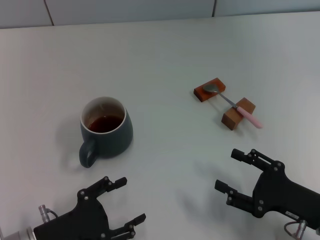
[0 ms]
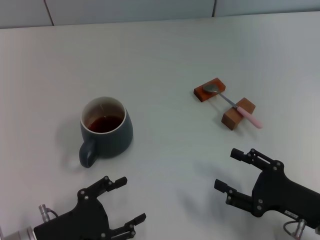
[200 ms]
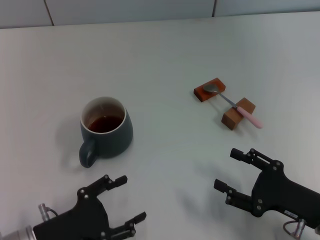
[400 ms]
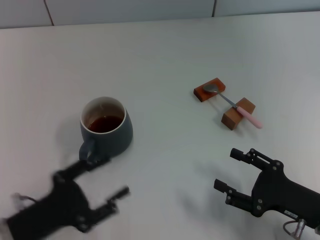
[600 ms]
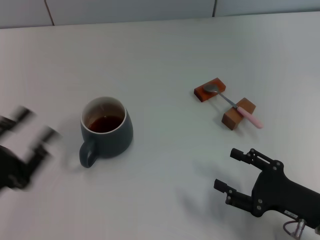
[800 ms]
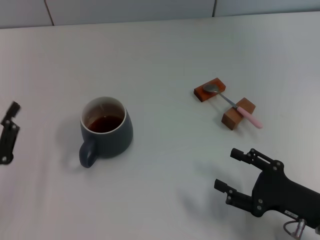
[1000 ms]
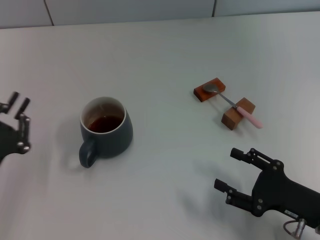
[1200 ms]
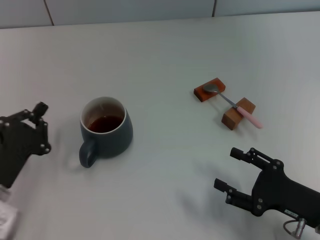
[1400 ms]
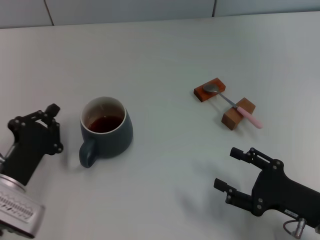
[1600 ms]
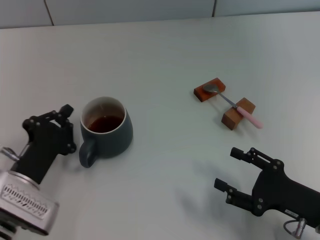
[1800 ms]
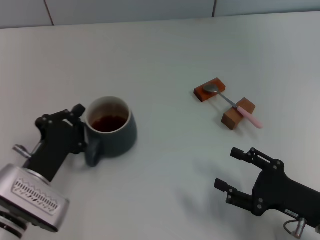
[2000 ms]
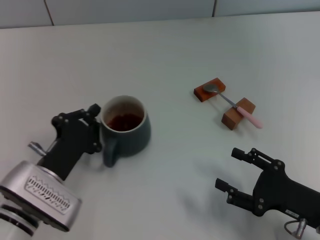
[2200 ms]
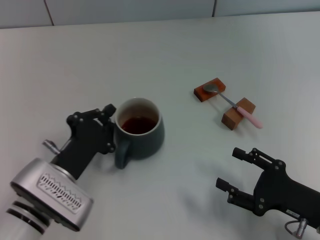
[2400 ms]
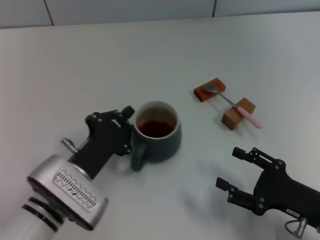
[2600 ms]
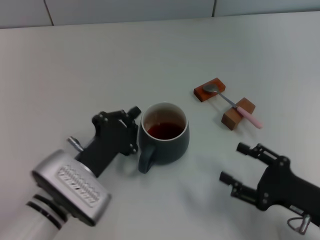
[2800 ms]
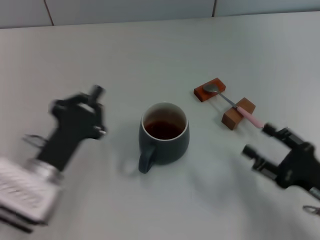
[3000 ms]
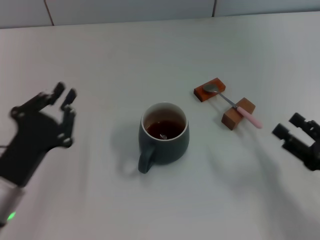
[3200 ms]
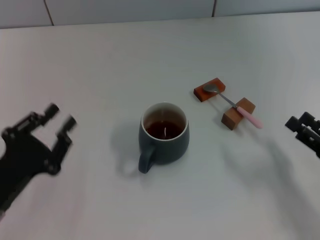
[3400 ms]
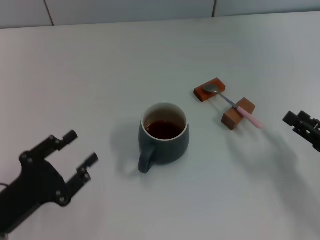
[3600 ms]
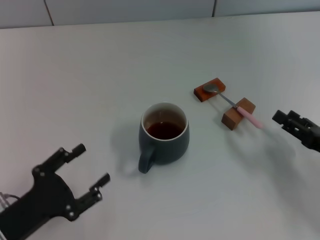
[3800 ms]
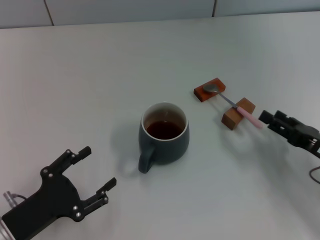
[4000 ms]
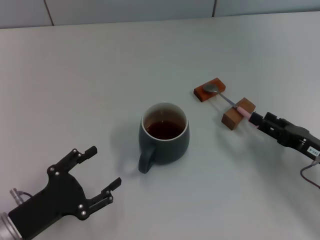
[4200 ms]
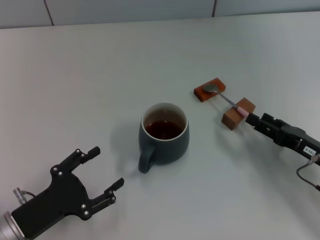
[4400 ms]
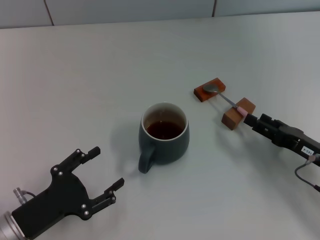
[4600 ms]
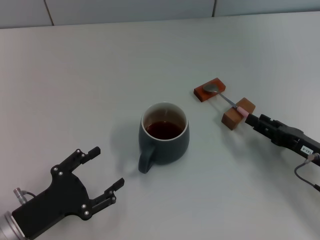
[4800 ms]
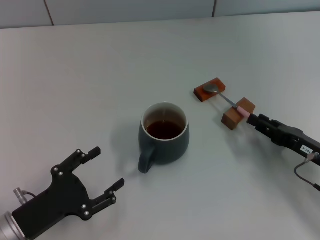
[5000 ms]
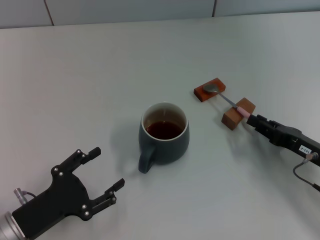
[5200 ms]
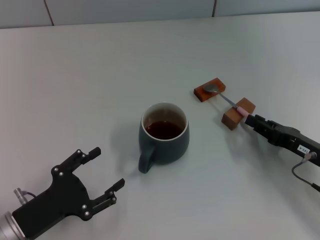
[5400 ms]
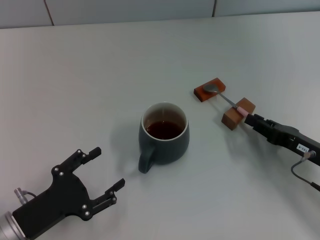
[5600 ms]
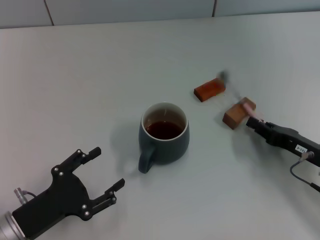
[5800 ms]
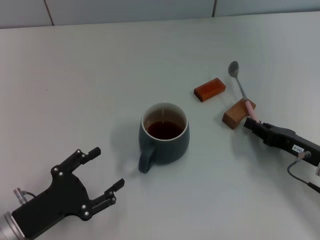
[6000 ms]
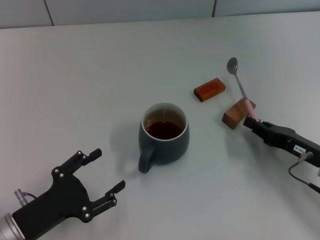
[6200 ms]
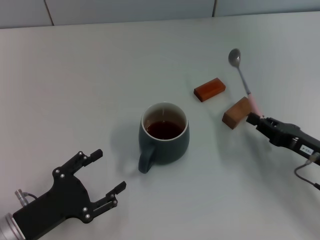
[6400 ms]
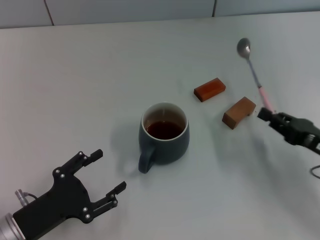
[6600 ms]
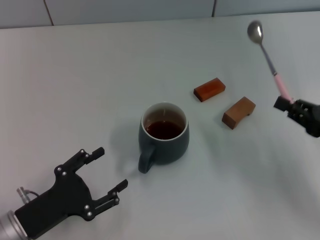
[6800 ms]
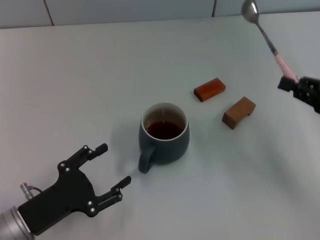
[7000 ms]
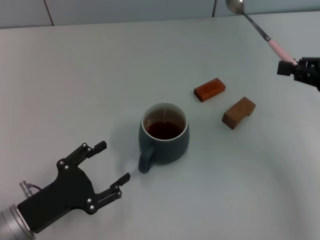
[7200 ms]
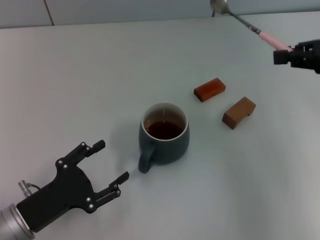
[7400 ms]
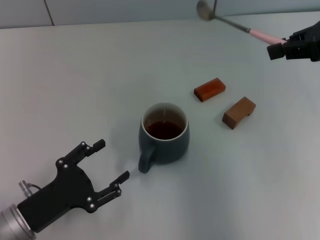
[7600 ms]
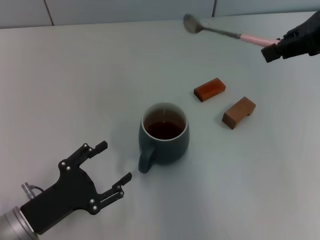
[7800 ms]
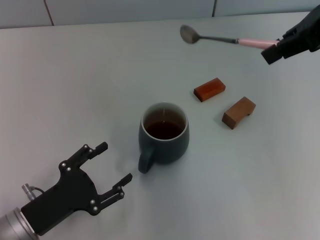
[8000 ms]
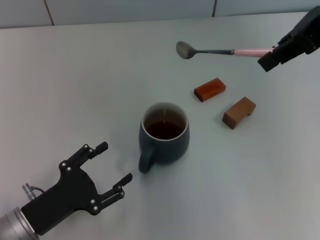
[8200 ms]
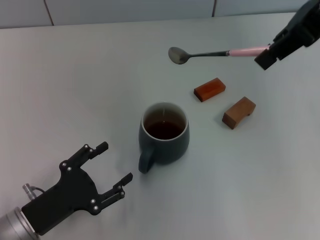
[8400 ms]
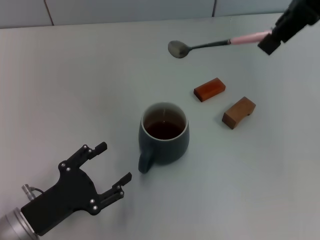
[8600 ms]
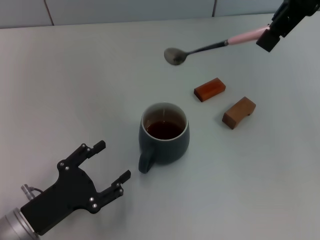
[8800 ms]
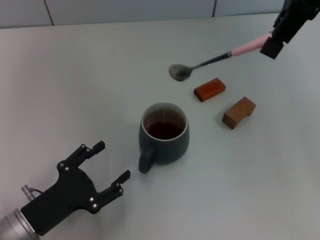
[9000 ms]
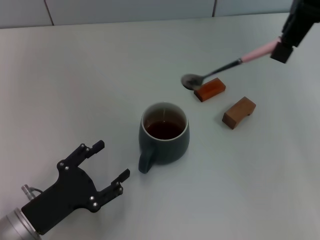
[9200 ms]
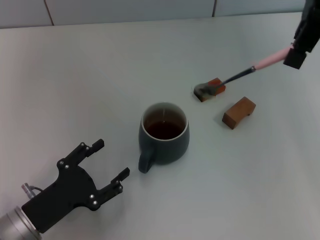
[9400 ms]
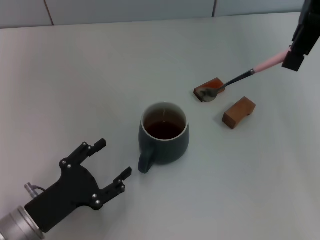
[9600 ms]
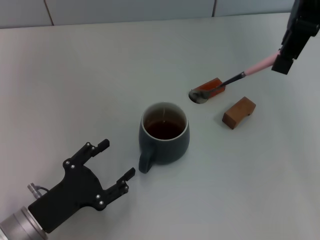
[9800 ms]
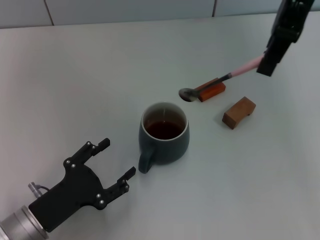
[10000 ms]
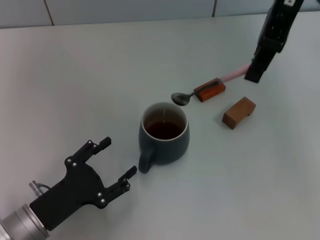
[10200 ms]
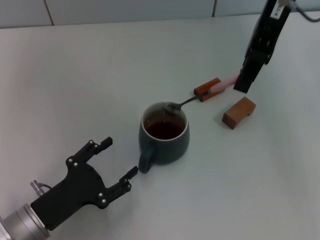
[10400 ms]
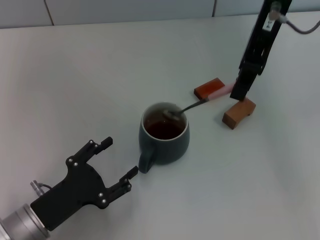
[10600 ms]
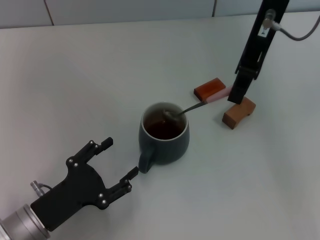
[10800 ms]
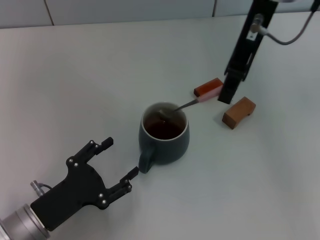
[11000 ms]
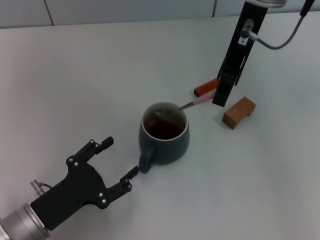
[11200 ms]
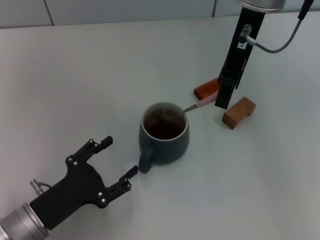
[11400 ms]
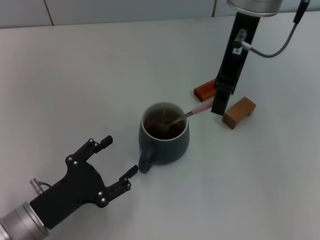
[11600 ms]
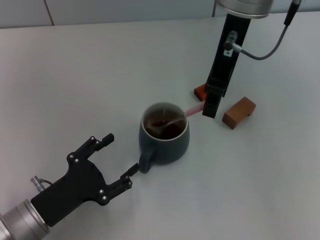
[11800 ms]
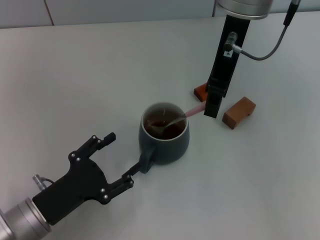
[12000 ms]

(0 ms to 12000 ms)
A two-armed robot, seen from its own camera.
Task of the whole recording: Move the grey cup to the center, lift the pink spoon, stir it three times in the cup, and put the spoon into the cup.
Step, 0 ms - 2800 ms: Move the cup with coffee to the center of view with the left gripper.
Step, 3000 ms - 6600 ms: Pick up the spoon with the right gripper.
0 ms - 1600 ms: The left gripper moves forward, roughly 5 cm, and closes its fingers.
1600 ms - 3000 ms: The left gripper shifts approximately 5 cm to the right.
3000 ms - 4400 ms: The left gripper is displaced to the left and backward by some 10 cm, and opens its fingers; the right gripper travels forward by approximately 5 cm.
4400 ms - 6000 ms: The right gripper closes up.
6000 ms - 7600 ms: The right gripper is displaced upward by some 25 cm.
7600 ms - 9000 ms: The right gripper heads to the left, upward and forward, covering about 15 cm.
9000 ms - 10400 ms: The right gripper moves downward, roughly 5 cm.
10400 ms - 12000 ms: The right gripper changes place by some 5 cm.

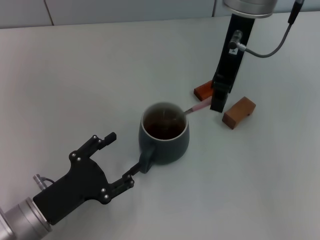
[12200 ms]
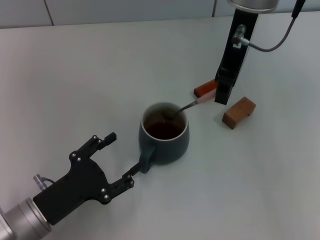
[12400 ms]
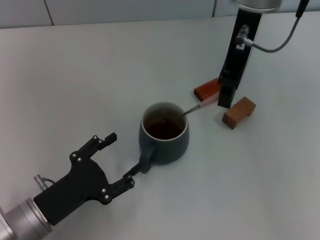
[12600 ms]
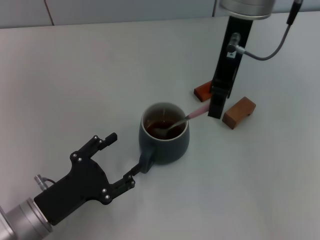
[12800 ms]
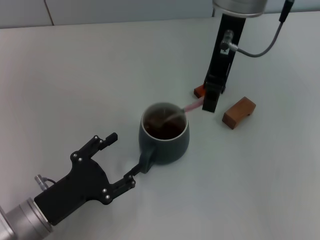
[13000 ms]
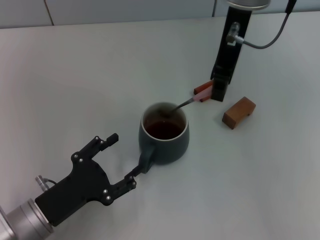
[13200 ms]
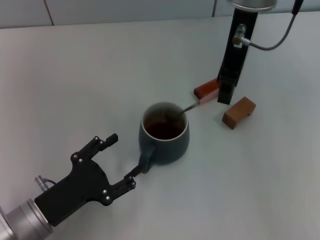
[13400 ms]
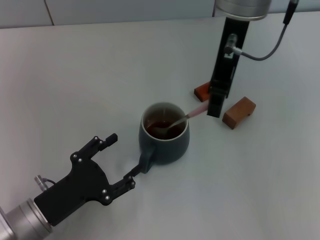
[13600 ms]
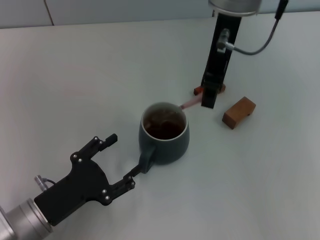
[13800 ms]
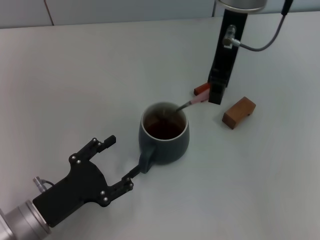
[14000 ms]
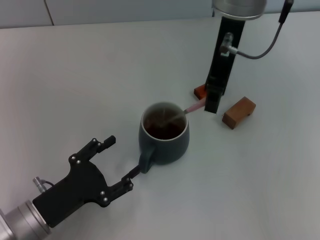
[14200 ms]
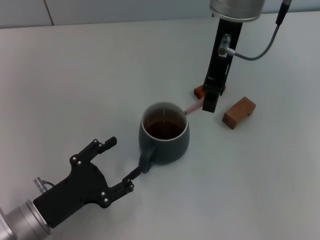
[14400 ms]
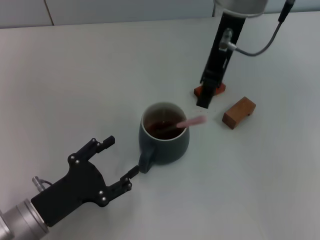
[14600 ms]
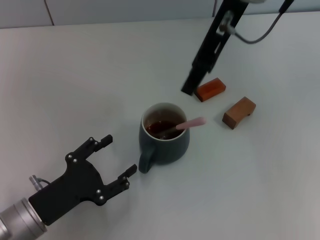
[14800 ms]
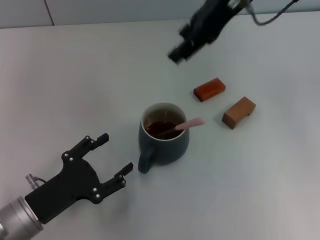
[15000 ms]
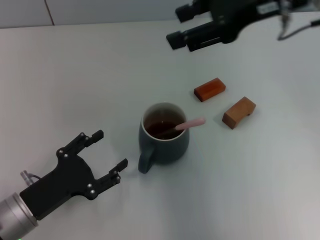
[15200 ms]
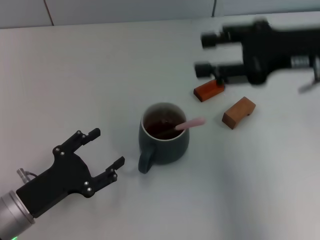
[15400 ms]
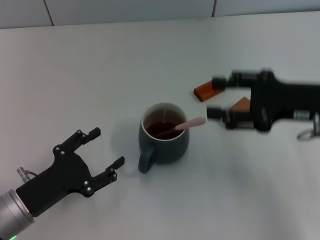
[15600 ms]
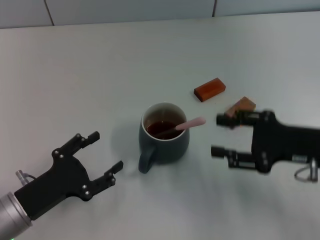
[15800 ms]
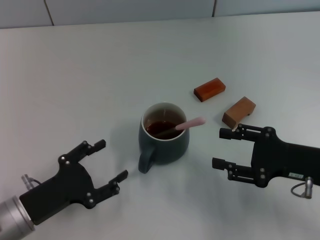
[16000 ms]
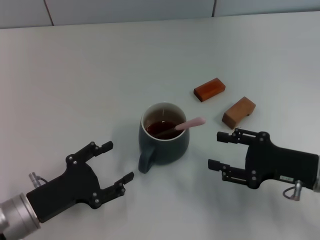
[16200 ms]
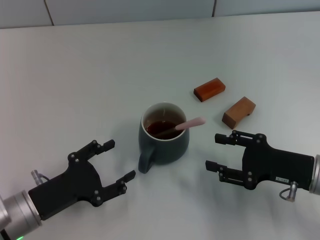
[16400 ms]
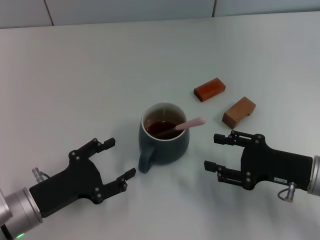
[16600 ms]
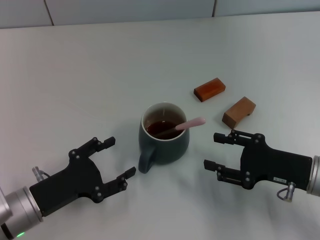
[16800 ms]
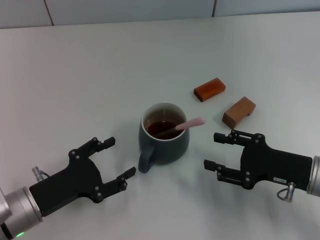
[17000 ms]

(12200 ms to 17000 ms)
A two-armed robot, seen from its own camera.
Task of the whole recording: Move the grey cup to the center, lift the pink spoon, stir it three times in the cup, and put the spoon into the cup.
Step, 12200 ms - 14600 ms: Stir the coffee in the cup with the right gripper.
12200 ms - 13800 ms: The grippers stay close to where they were, moving slightly.
13800 ms - 15400 ms: The right gripper is displaced to the right and backward by some 20 cm, and opens its fingers.
15400 ms - 17000 ms: The right gripper heads downward and backward, covering approximately 20 cm.

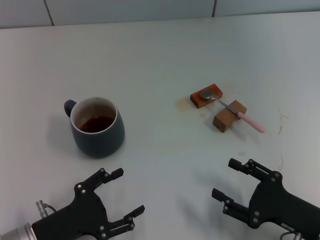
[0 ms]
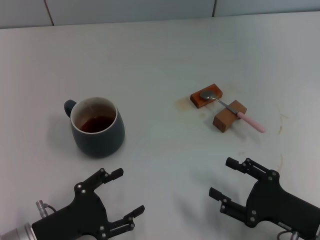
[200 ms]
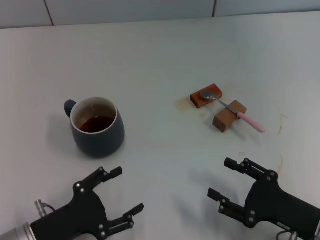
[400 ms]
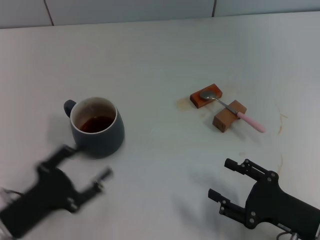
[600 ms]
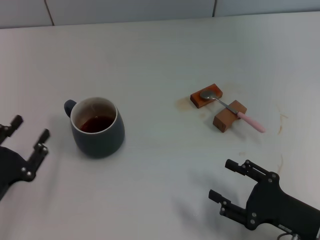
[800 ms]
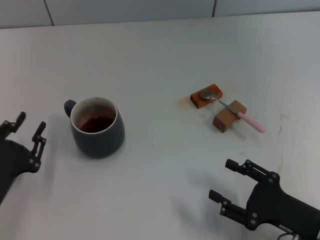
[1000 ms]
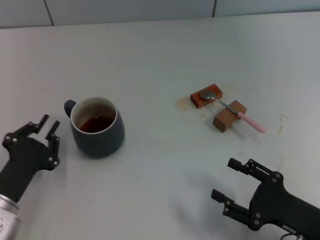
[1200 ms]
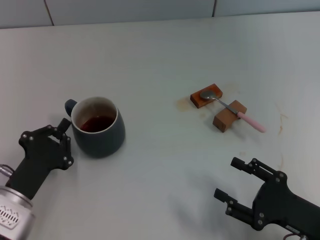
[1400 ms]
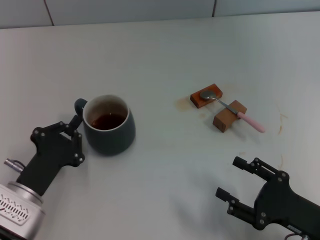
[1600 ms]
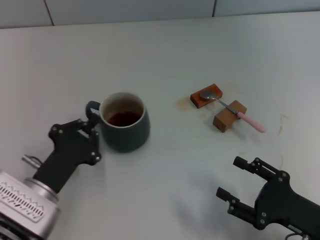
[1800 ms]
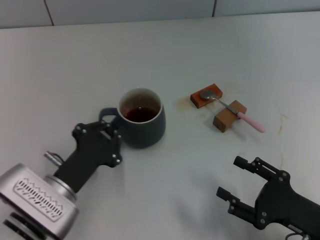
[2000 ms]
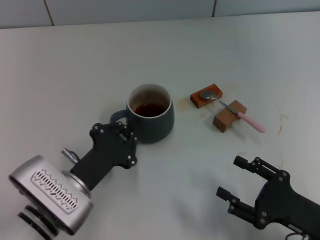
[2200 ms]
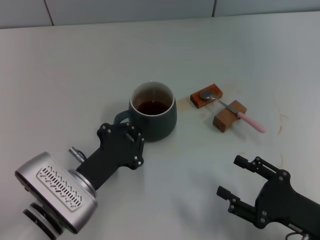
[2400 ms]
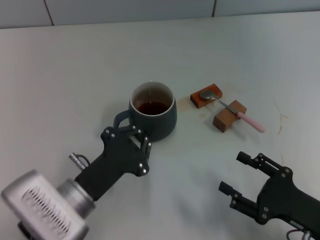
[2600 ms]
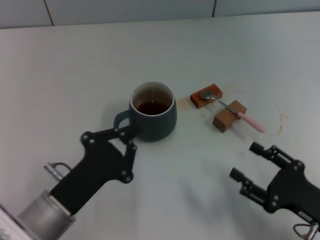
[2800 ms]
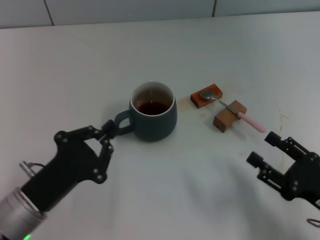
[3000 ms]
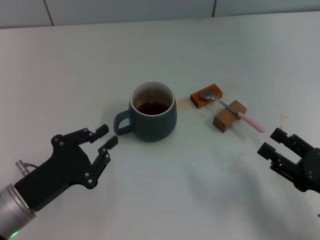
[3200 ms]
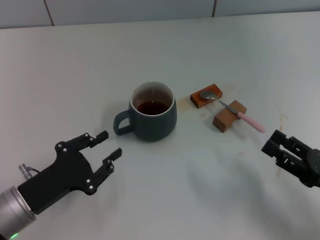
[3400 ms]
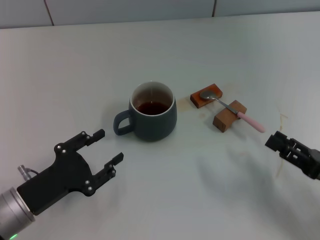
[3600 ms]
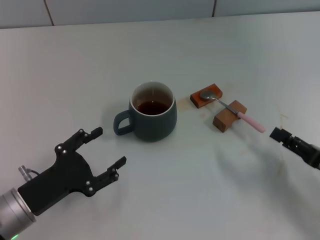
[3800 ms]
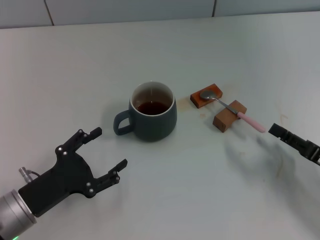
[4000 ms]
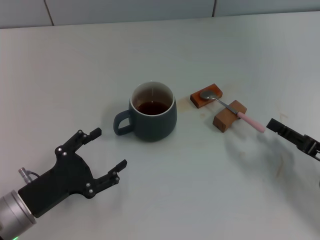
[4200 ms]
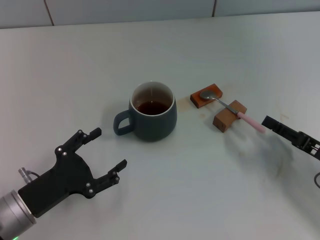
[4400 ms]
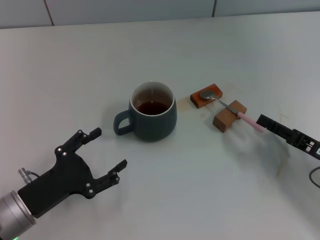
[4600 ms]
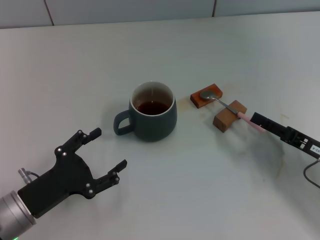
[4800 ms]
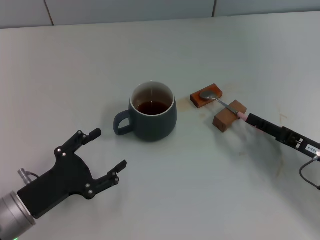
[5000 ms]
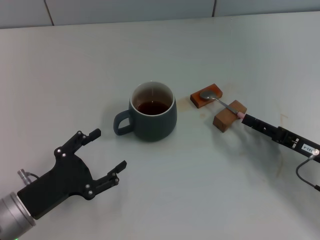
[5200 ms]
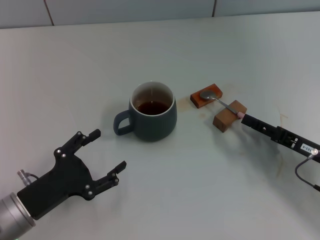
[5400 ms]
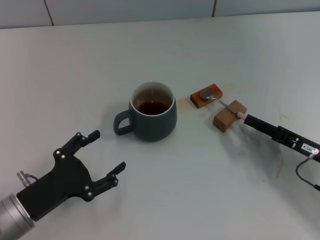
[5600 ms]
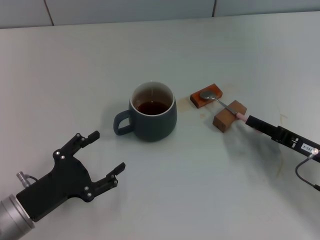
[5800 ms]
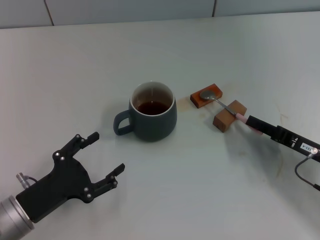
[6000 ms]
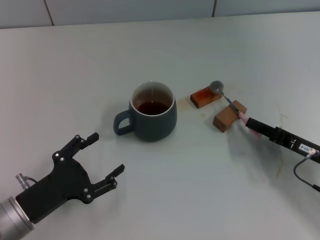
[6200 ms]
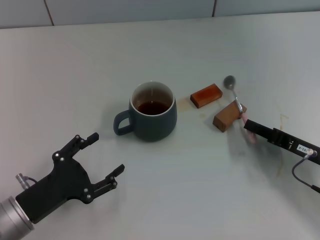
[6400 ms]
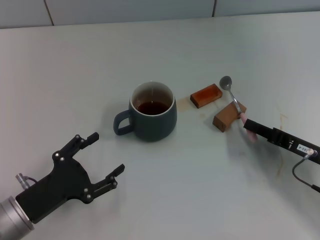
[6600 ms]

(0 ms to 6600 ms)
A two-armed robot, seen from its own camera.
Task of the whole recording: Move the grey cup to the center, lift the pink spoon, stir it three times in the cup, and put the spoon into the cup.
Step, 0 ms - 3200 ms: Move the cup with coffee to the center of view with the left gripper.
0 ms - 1600 ms: The left gripper closes its fingers.
1600 ms - 3200 ms: The left gripper travels to the right and back again, roughly 5 cm each way.
3200 ms - 5000 ms: The right gripper shifts some 10 cm forward, while the left gripper opens up.
5000 ms - 6600 ms: The right gripper closes.
